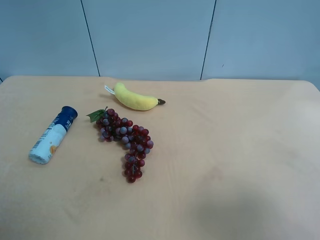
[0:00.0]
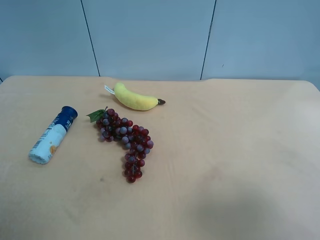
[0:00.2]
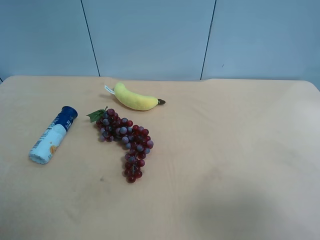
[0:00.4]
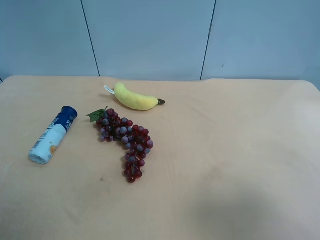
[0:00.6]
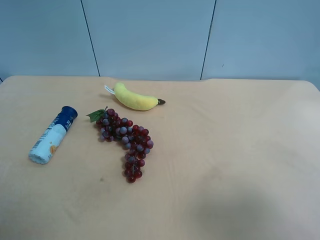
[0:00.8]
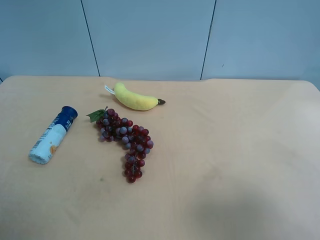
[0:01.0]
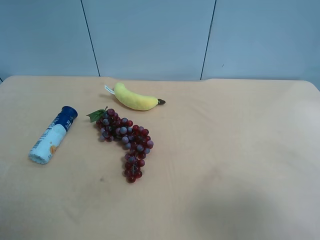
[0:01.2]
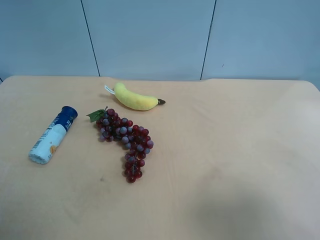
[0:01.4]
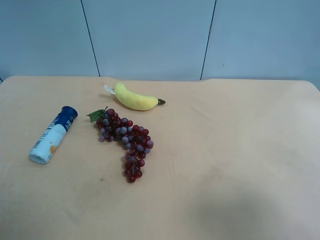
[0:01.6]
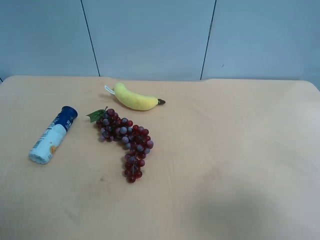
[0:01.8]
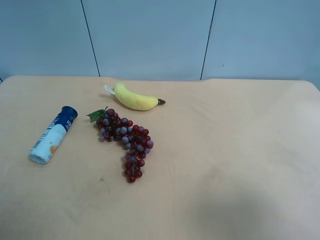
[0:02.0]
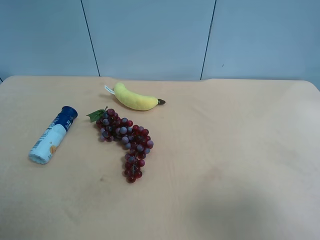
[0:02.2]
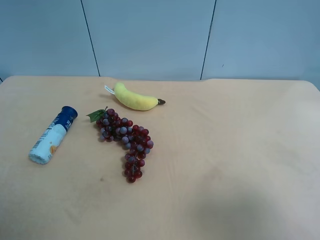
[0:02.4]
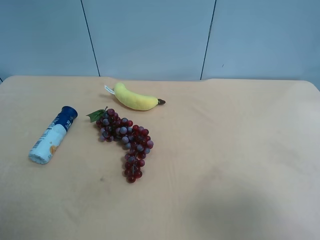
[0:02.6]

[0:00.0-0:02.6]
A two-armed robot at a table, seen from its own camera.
Task of the whole recording: use the right gripper to pick up the item and transfer it from the right gripper to the left gripper.
0:01.2 to 0:02.6: Neither gripper changes place.
